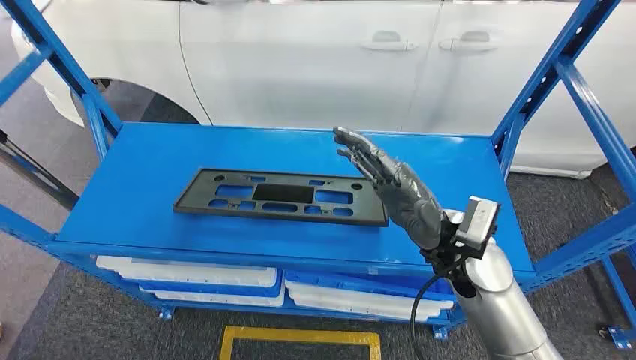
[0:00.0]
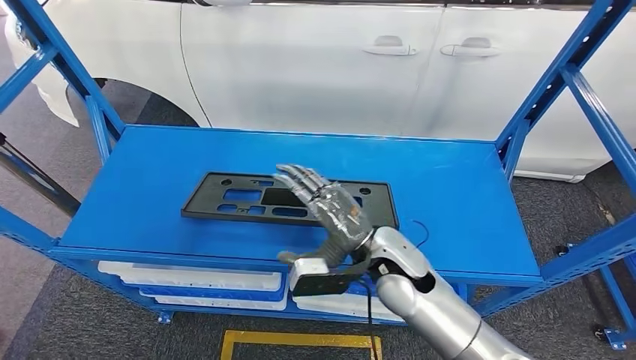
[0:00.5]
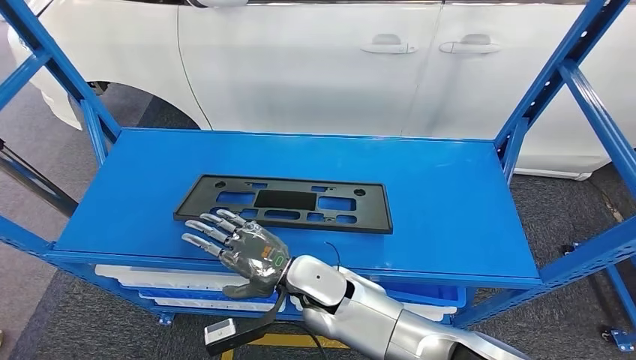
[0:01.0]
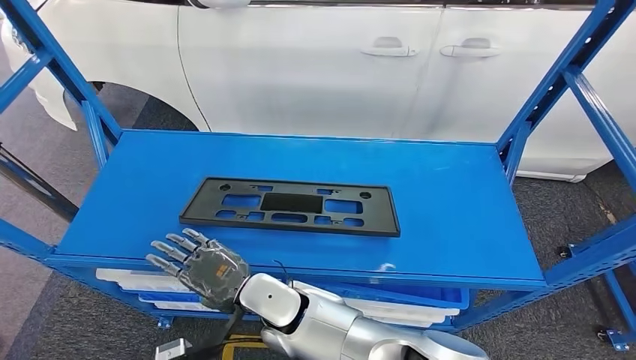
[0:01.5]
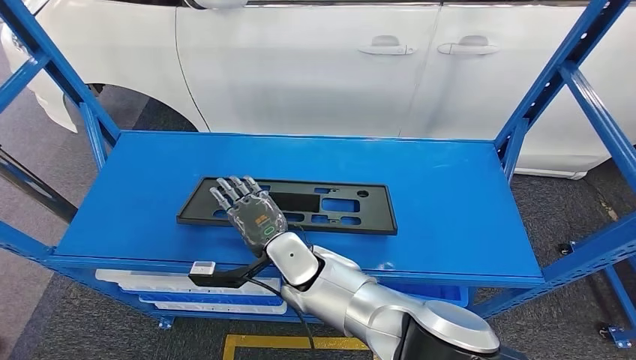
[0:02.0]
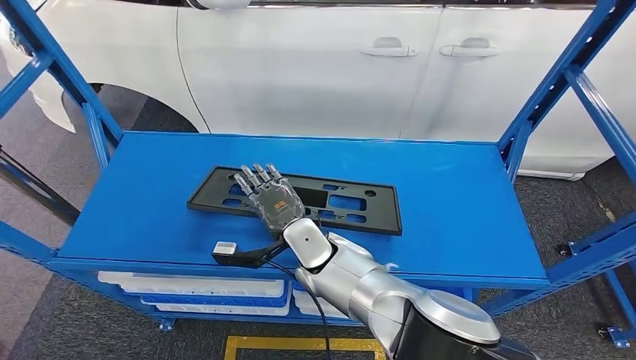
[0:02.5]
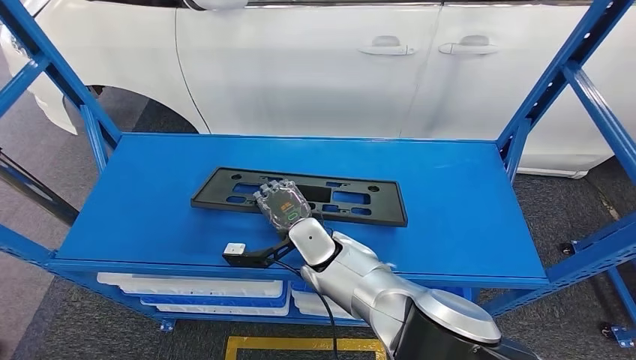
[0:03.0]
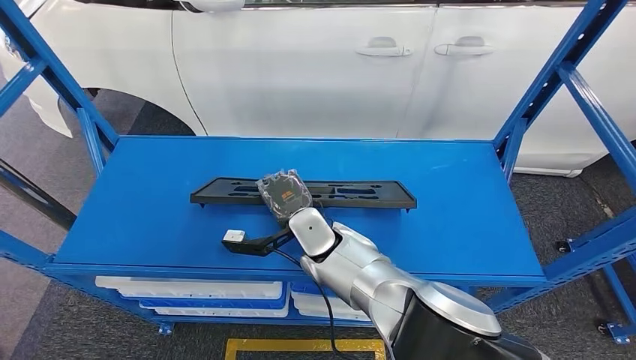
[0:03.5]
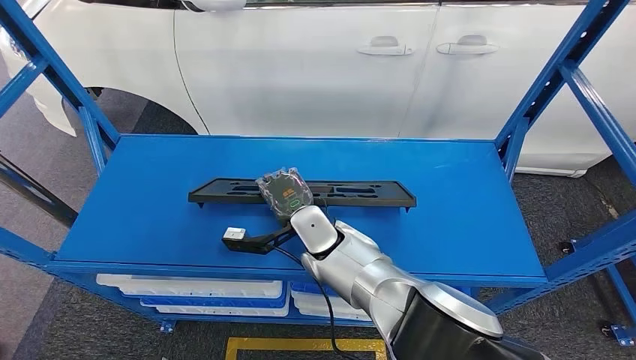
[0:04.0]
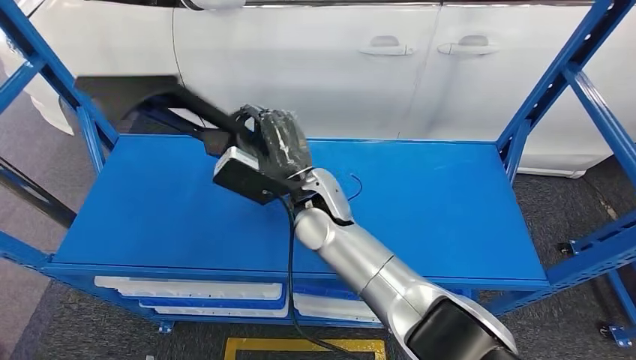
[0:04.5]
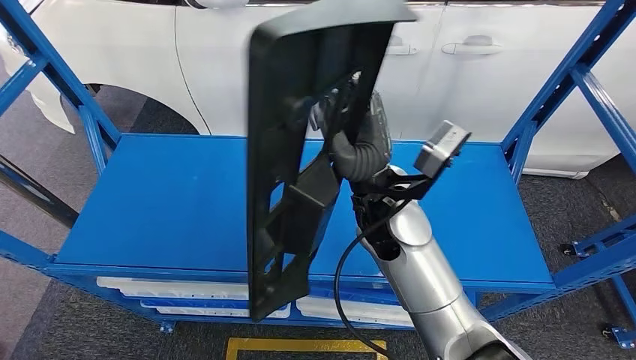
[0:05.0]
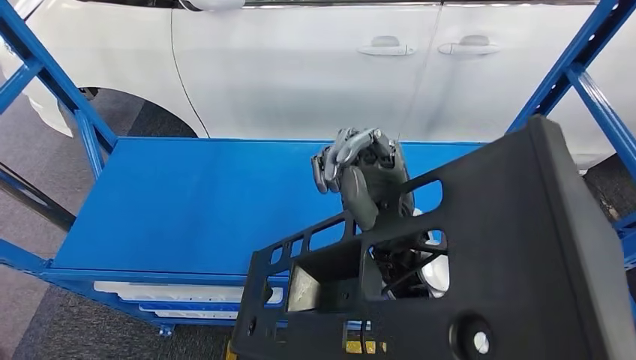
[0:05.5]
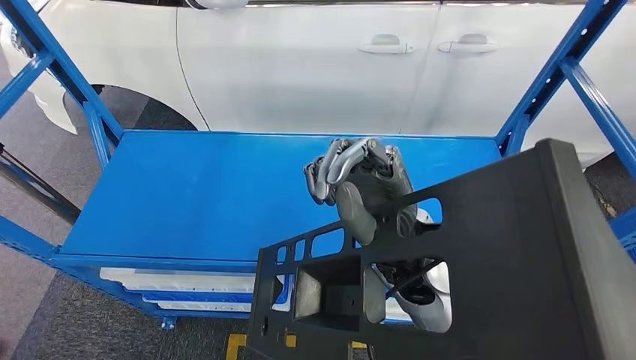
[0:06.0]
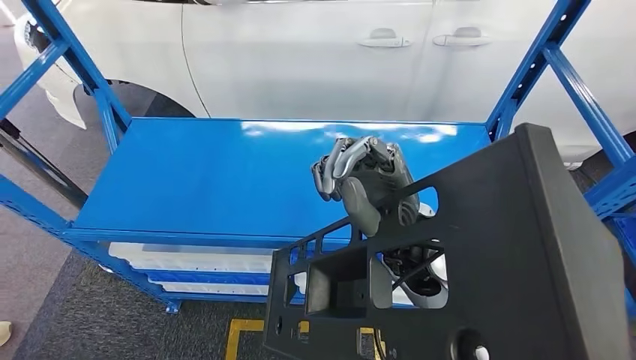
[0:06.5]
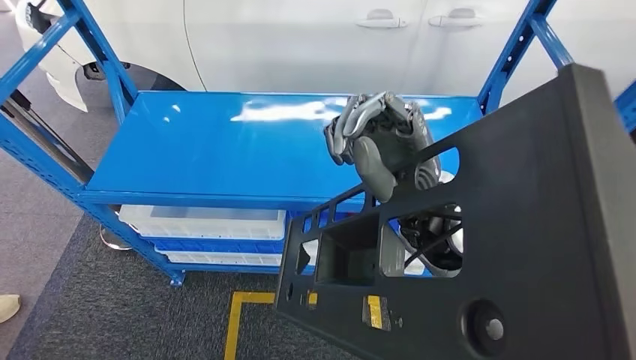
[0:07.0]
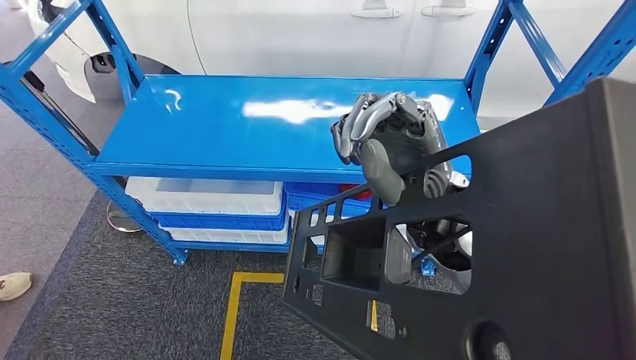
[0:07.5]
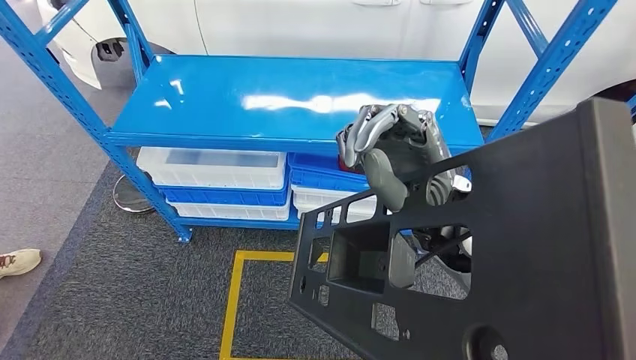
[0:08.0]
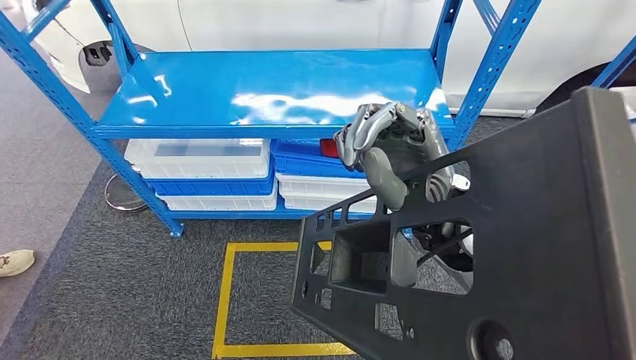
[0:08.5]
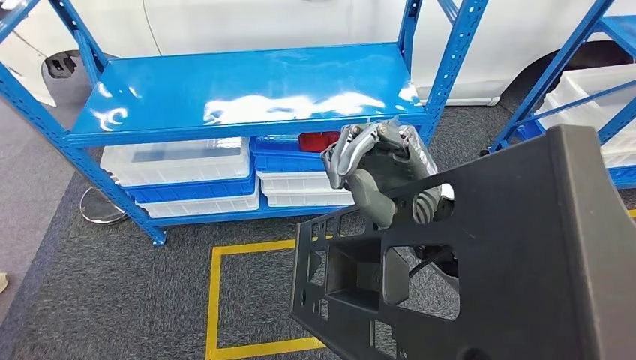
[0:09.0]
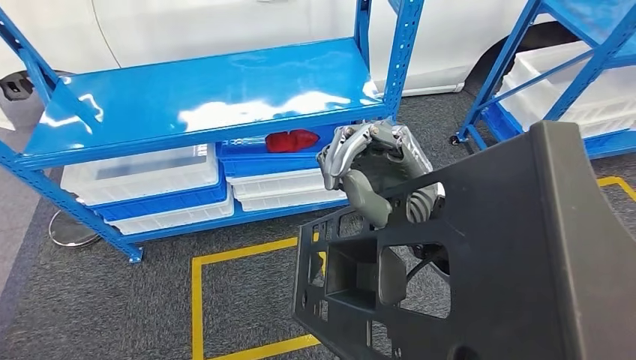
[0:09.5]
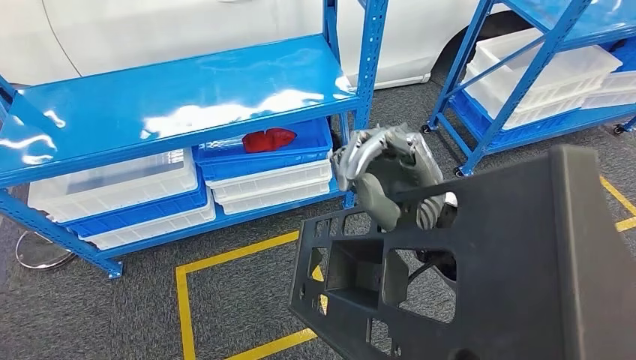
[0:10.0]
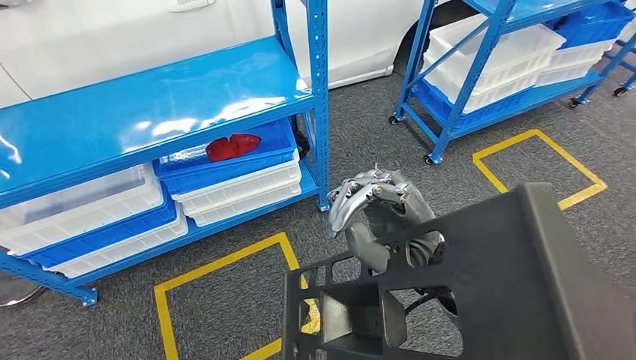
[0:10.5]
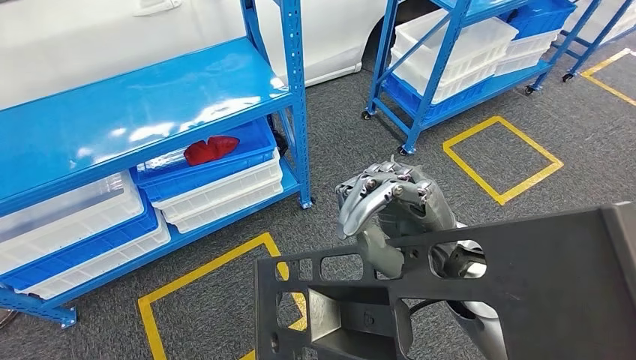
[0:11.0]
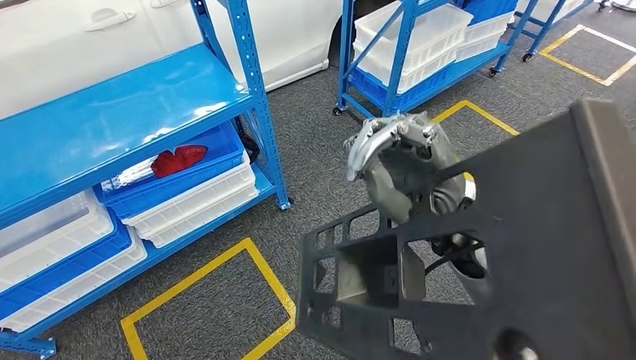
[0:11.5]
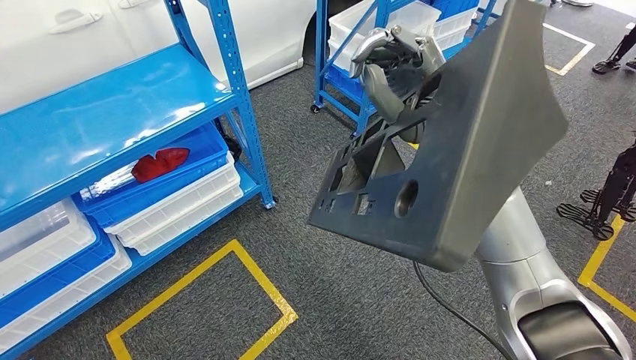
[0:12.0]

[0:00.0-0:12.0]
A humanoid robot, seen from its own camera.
Step, 0:00.0 to 0:05.0: Pick up the small parts from the shelf.
0:02.0 to 0:04.0: The right hand moves forward, roughly 5 cm.

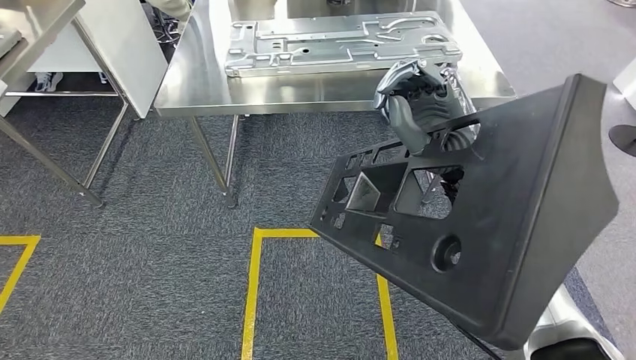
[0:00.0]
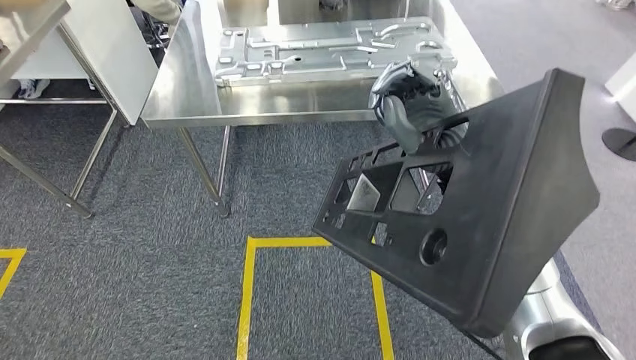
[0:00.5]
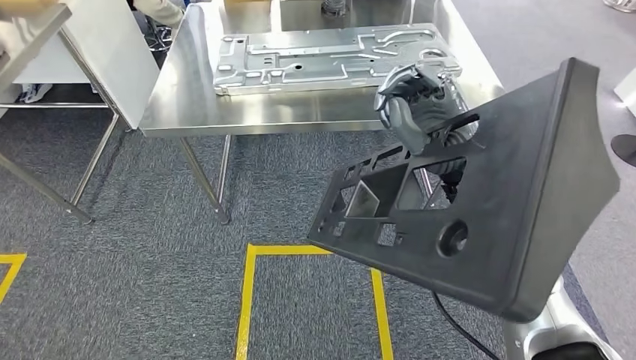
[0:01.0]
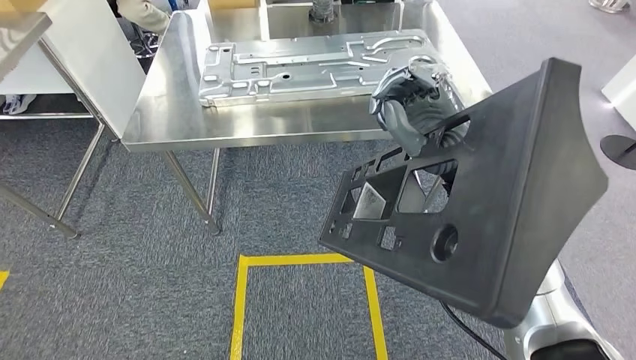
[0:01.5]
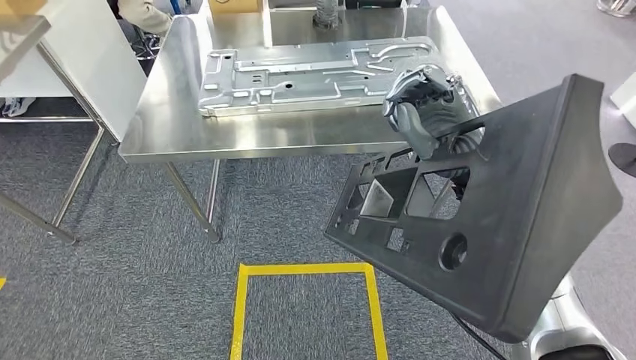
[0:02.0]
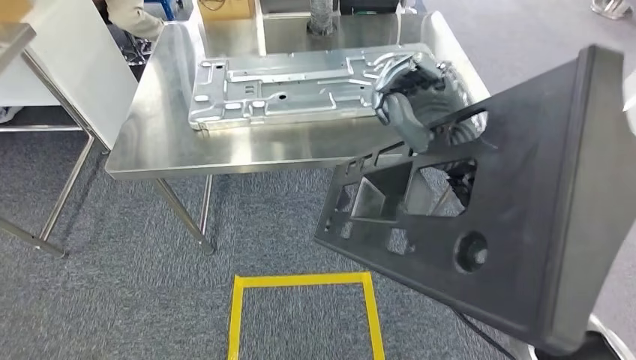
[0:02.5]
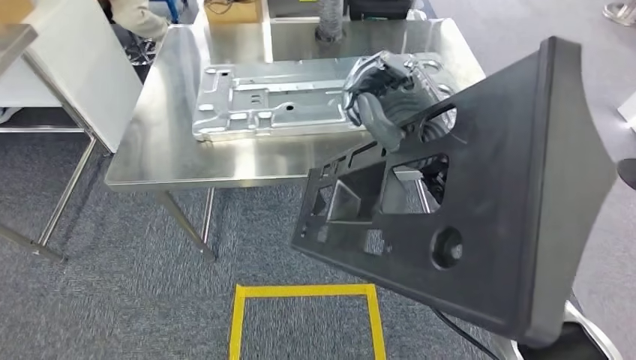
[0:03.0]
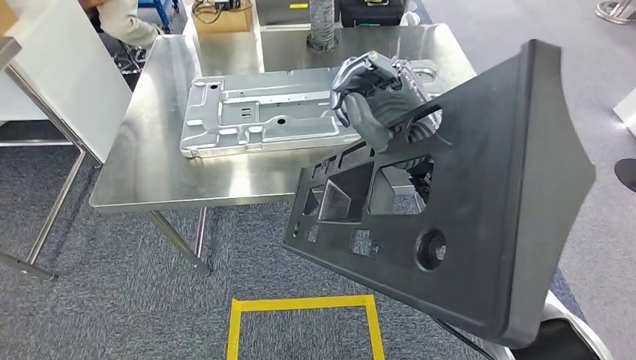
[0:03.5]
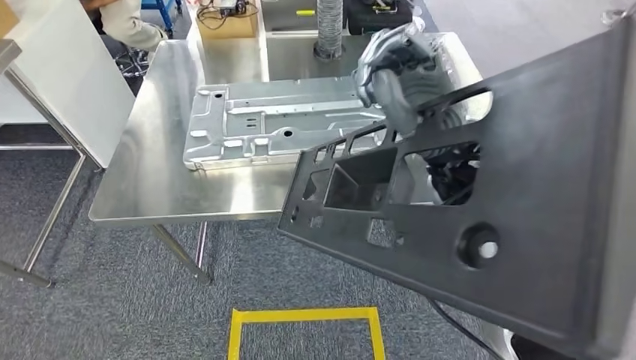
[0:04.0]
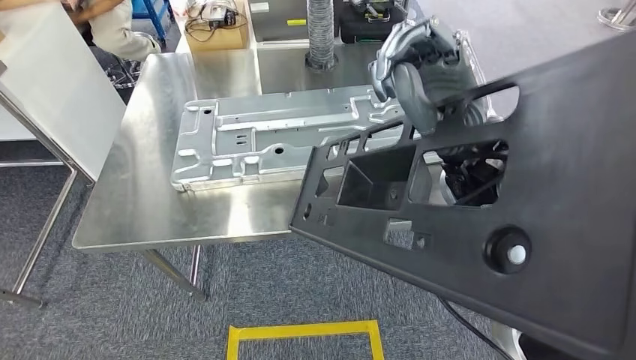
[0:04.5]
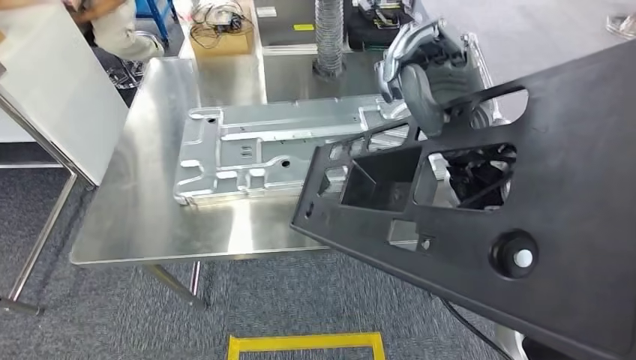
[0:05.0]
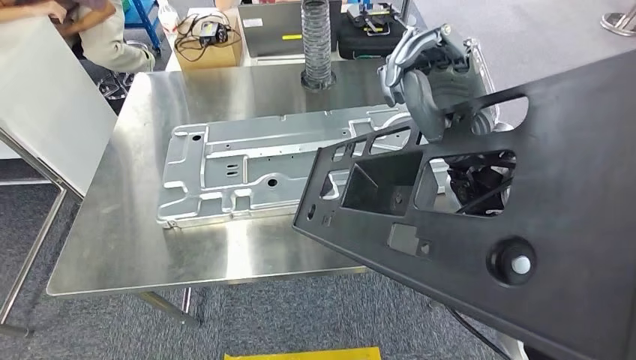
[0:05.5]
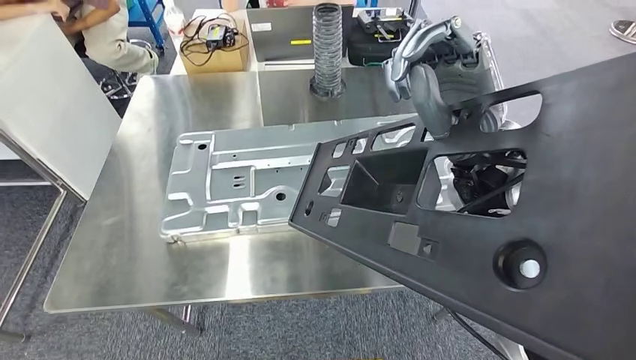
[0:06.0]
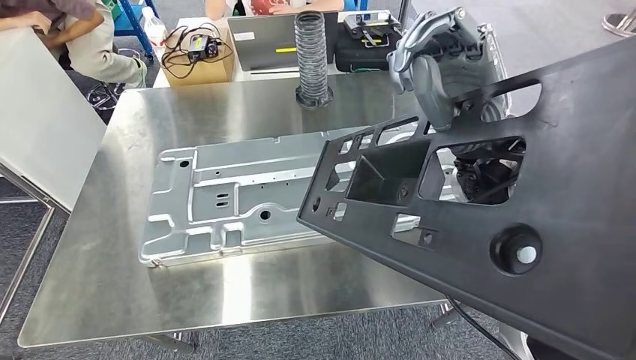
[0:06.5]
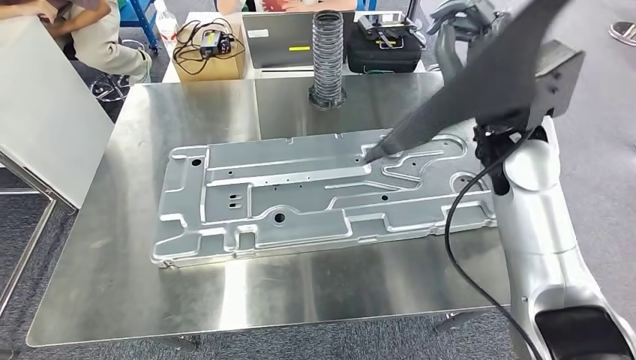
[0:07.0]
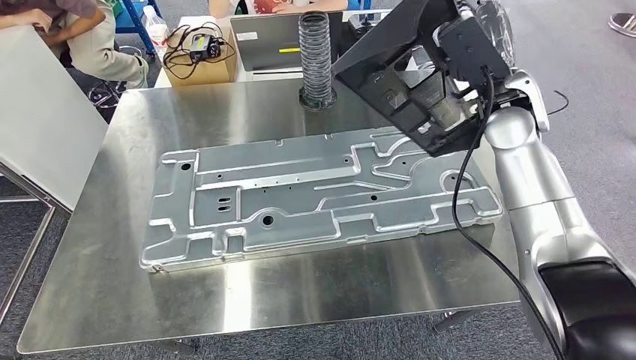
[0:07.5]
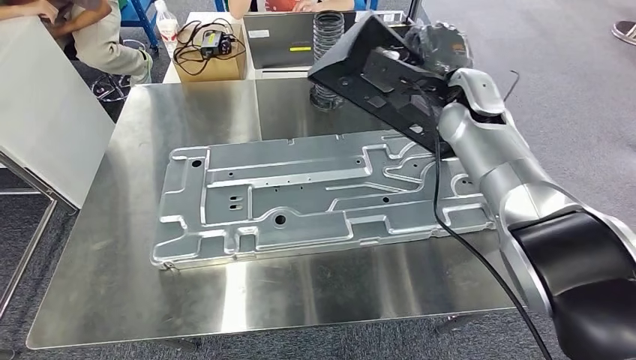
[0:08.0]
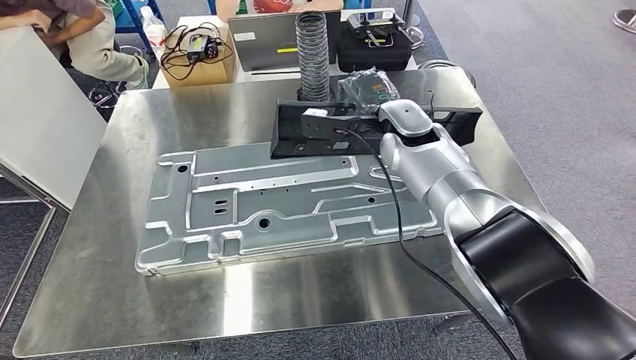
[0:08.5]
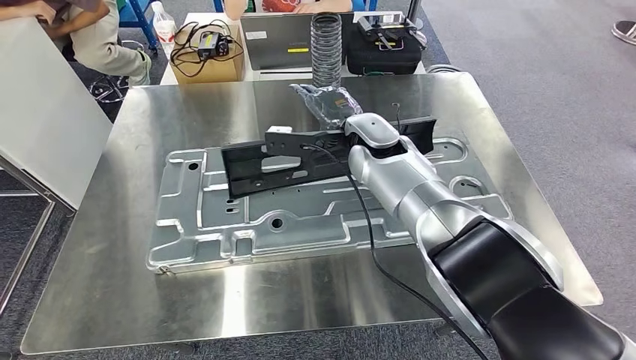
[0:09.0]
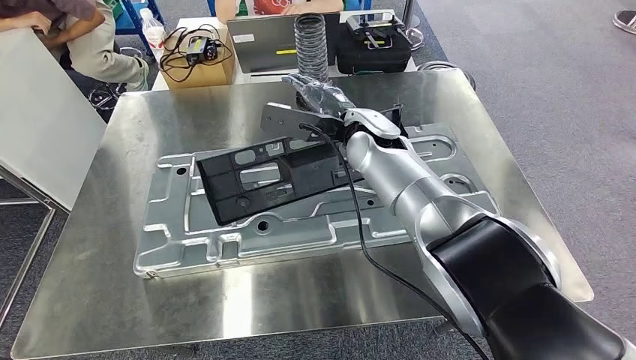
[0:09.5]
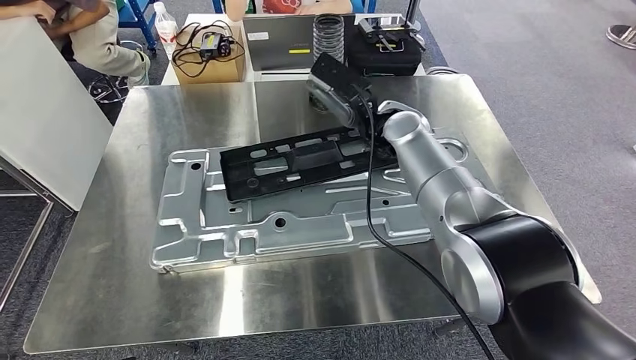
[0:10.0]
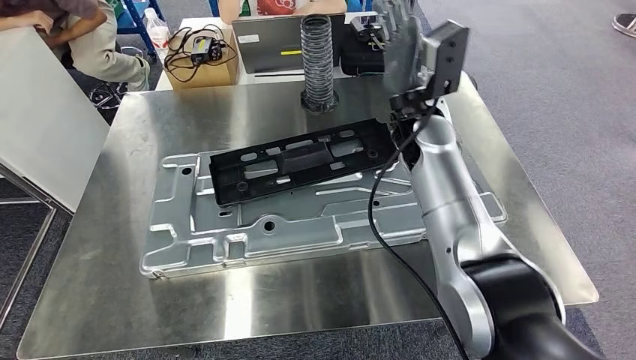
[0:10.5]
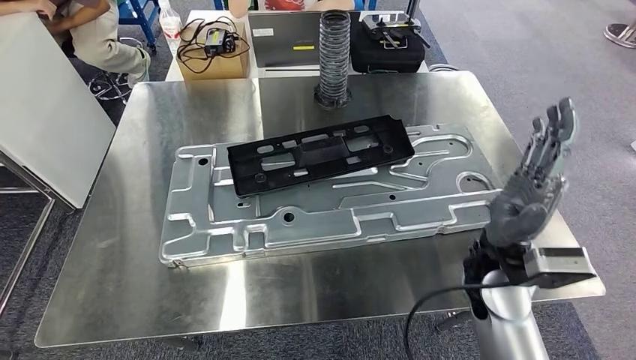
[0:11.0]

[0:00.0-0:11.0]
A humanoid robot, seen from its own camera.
Step, 0:00.0 to 0:06.0: Move the small parts to the workbench.
Step, 0:06.5 to 0:10.5: Insert the small parts into the corresponding holes on the workbench.
